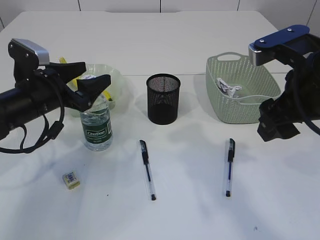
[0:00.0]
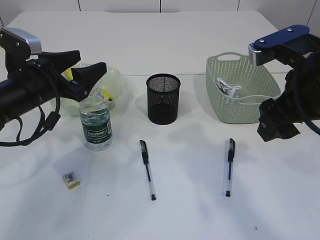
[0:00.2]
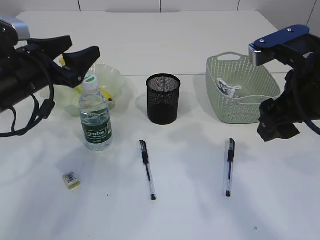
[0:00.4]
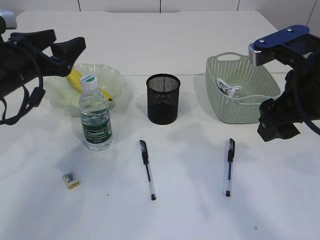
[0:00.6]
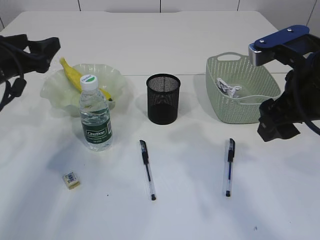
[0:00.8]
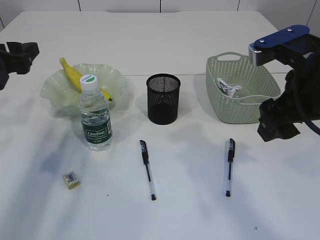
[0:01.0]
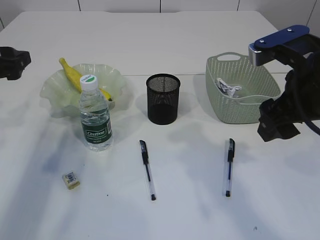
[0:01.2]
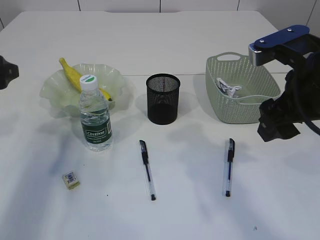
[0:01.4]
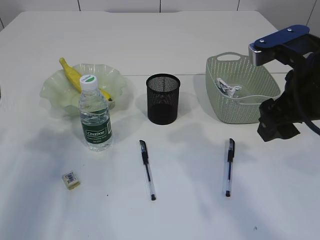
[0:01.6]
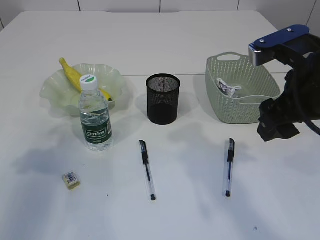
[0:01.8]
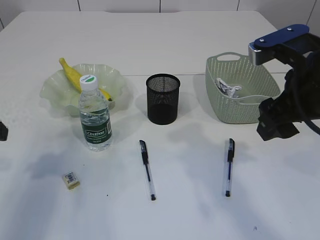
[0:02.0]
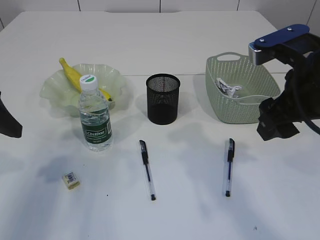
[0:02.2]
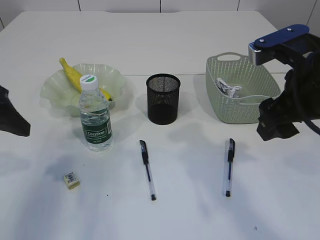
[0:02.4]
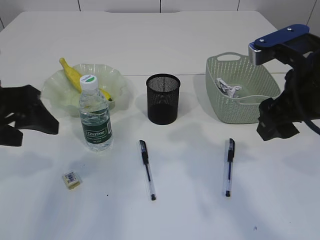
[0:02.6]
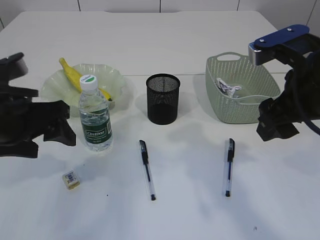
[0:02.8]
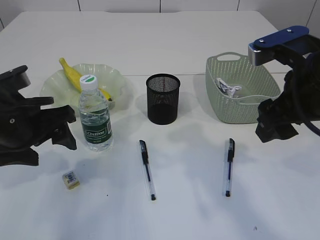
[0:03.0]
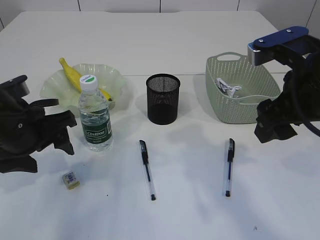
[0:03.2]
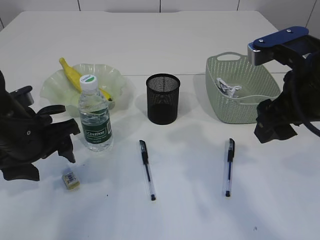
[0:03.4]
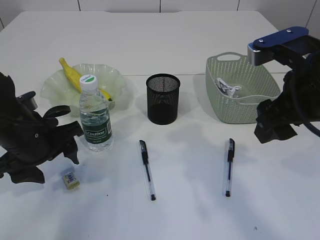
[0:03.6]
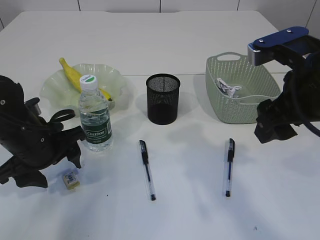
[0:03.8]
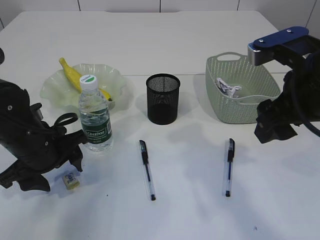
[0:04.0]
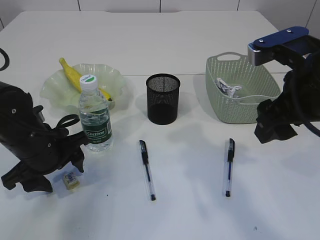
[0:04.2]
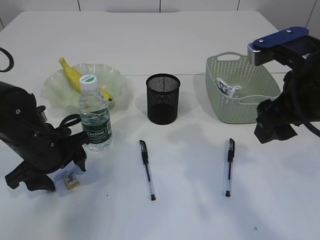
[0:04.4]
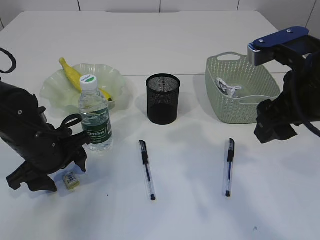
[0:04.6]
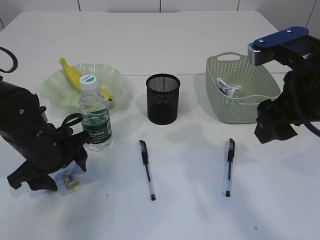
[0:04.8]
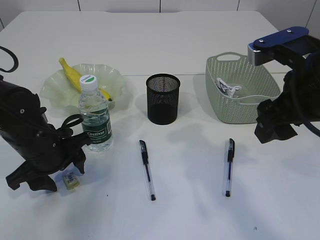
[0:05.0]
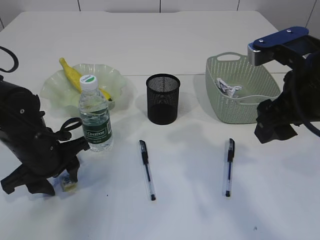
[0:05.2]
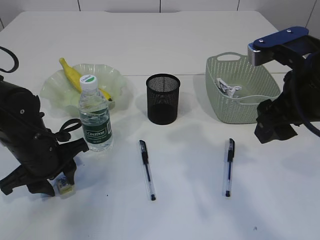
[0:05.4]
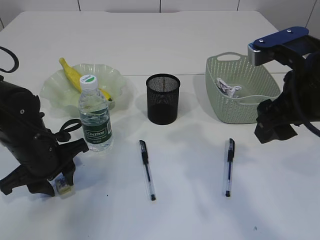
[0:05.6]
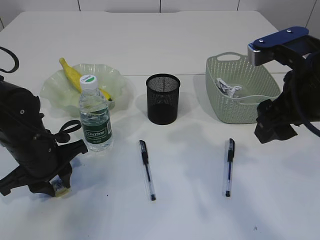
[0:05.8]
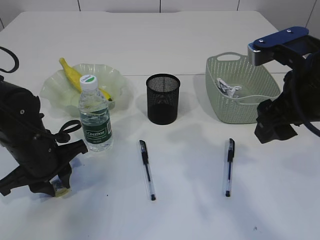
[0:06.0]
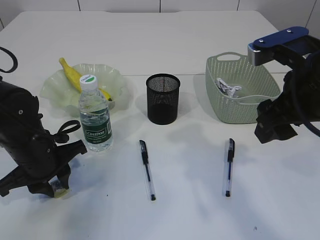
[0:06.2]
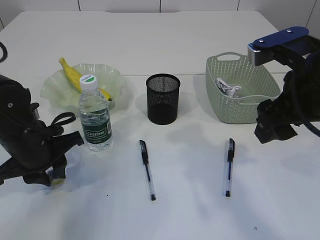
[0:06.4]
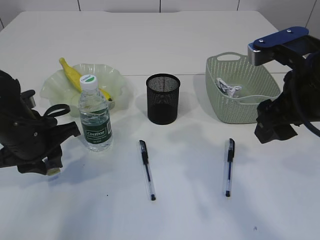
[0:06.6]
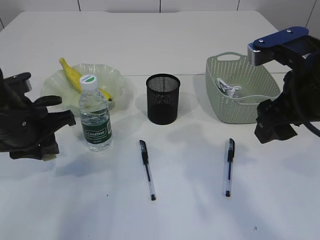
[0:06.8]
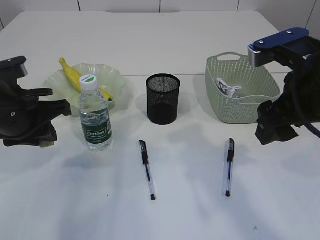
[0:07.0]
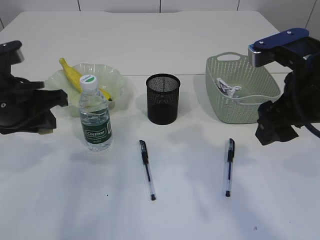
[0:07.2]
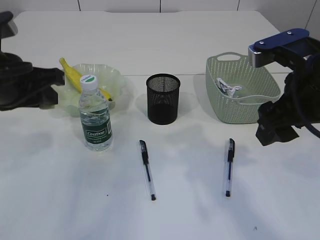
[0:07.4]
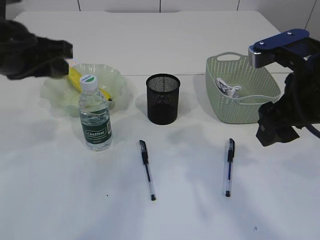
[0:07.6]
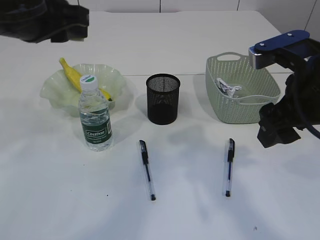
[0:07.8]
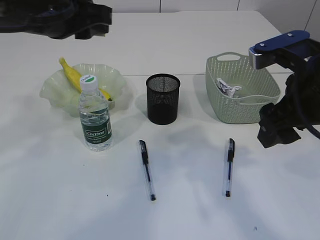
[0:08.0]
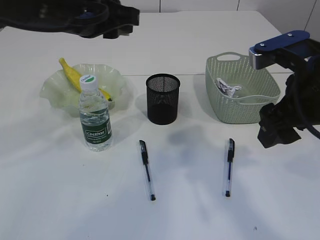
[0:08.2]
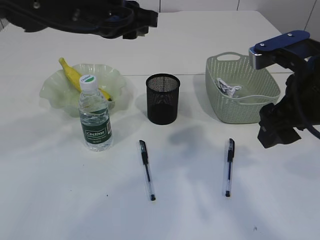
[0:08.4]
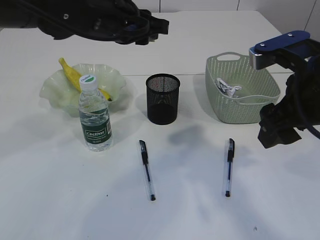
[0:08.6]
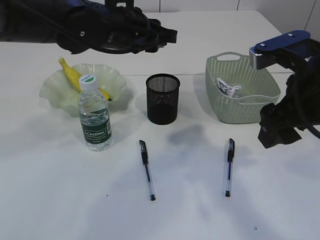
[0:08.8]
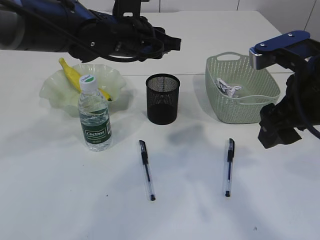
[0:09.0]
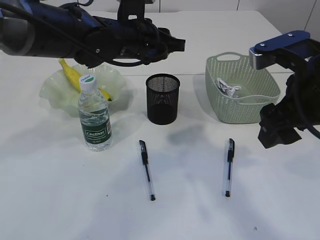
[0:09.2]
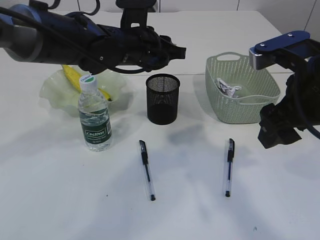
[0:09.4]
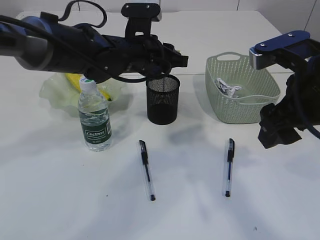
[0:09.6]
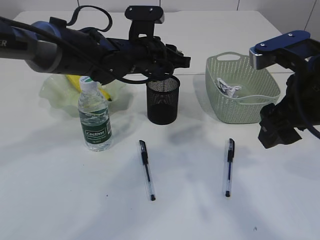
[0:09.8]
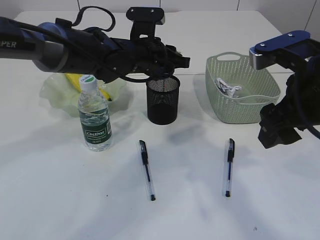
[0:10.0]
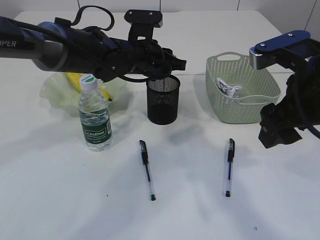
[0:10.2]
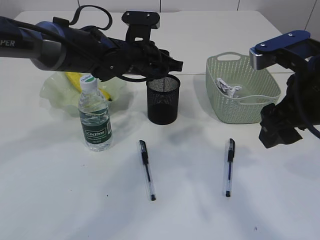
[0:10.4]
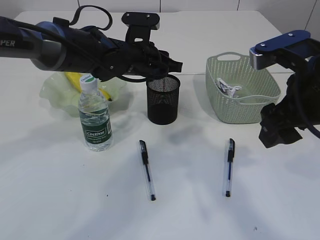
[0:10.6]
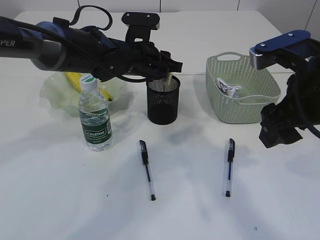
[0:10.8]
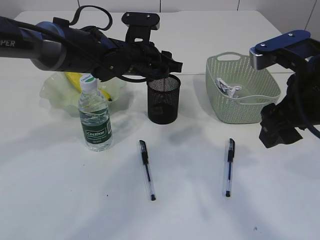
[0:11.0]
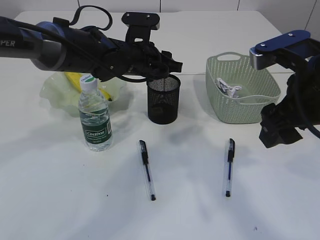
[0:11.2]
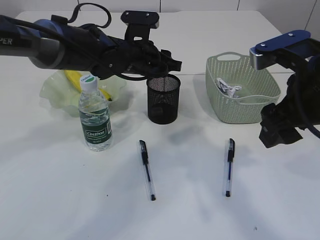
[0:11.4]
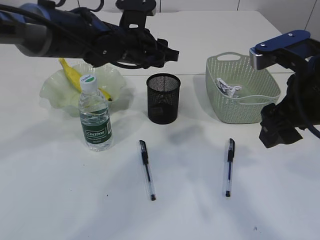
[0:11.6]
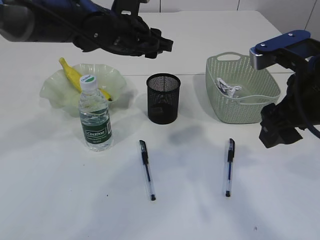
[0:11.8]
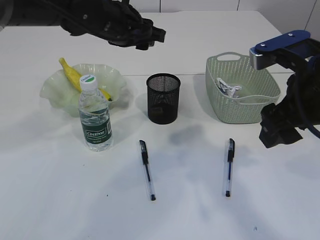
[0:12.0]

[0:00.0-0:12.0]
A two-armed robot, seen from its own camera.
Step, 0:00.2 to 0:06.6: Pick up the eraser.
Step, 0:06.8 to 0:11.8: Place the eraser into the pen holder.
0:00.0 to 0:01.6: The left gripper heads to the left, upward and backward, covering some 15 cm.
0:01.6 to 0:03.0: The left gripper is displaced to the right by approximately 10 cm.
0:03.0 to 0:04.4: The left gripper travels downward by some 10 cm.
0:04.4 to 0:06.0: The left gripper closes its fingers.
0:06.0 to 0:07.6: The left gripper goes roughly 20 cm upward.
0:07.6 to 0:09.0: The left gripper is displaced to the right and forward by roughly 20 cm.
0:09.0 to 0:10.4: The left gripper moves downward, some 5 cm.
0:10.4 to 0:12.0: The left gripper heads upward, covering approximately 10 cm, and opens.

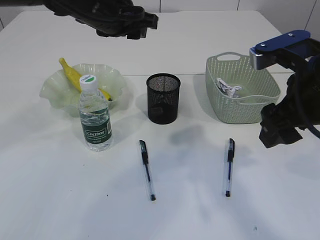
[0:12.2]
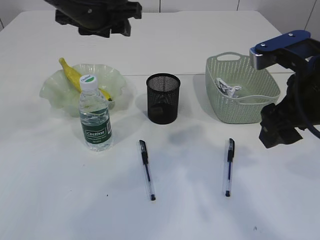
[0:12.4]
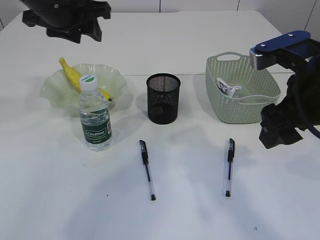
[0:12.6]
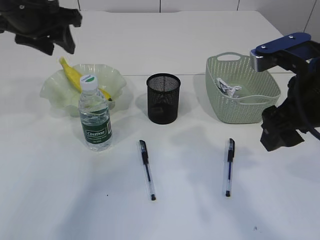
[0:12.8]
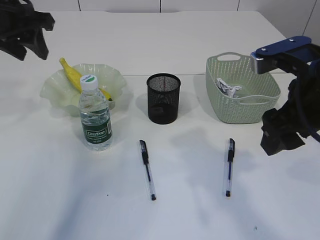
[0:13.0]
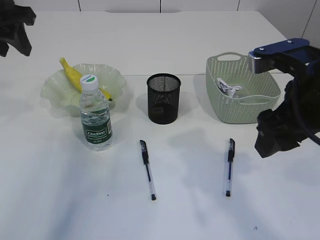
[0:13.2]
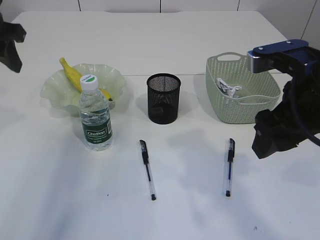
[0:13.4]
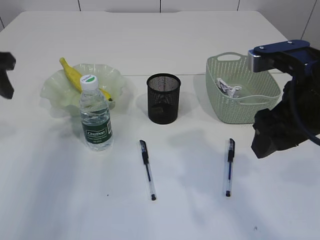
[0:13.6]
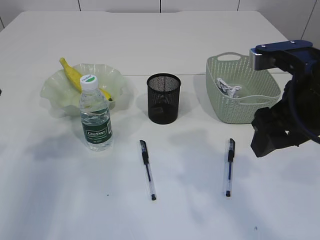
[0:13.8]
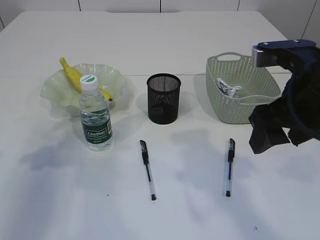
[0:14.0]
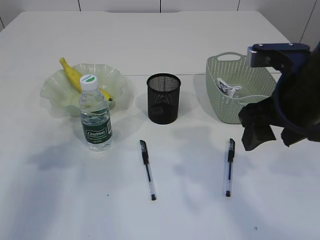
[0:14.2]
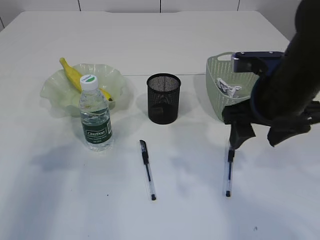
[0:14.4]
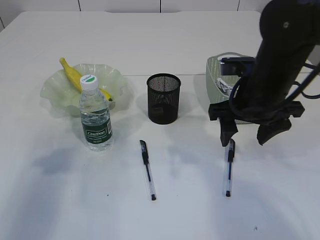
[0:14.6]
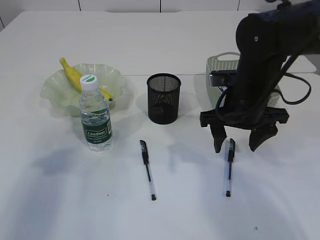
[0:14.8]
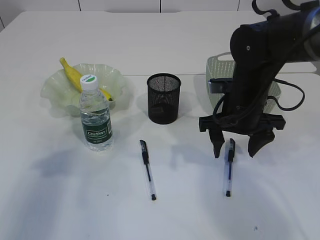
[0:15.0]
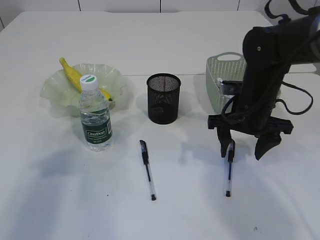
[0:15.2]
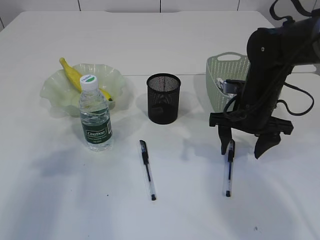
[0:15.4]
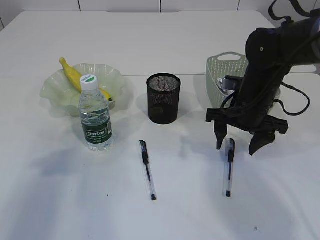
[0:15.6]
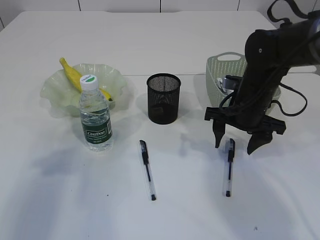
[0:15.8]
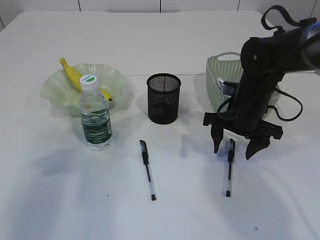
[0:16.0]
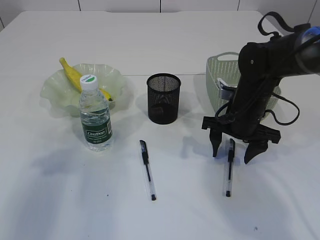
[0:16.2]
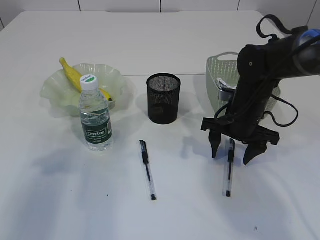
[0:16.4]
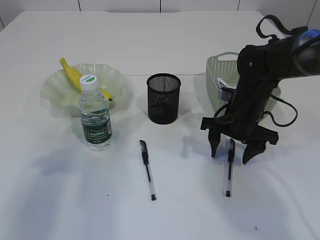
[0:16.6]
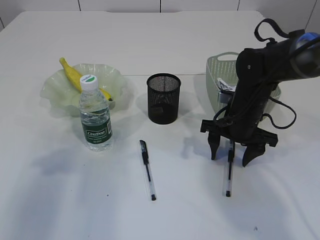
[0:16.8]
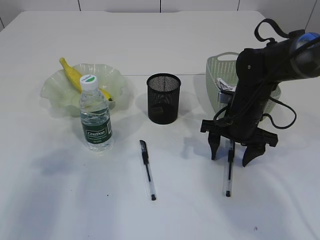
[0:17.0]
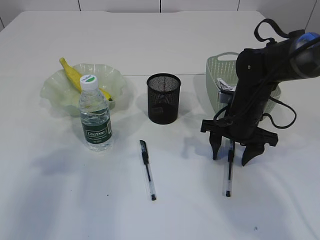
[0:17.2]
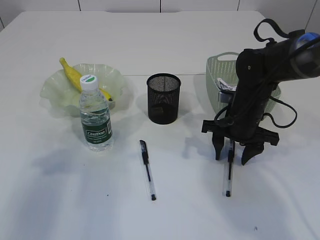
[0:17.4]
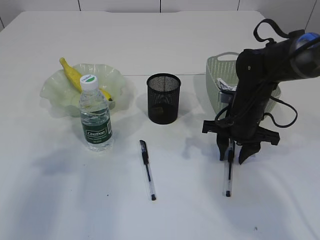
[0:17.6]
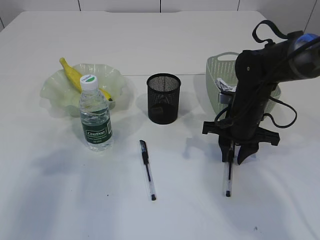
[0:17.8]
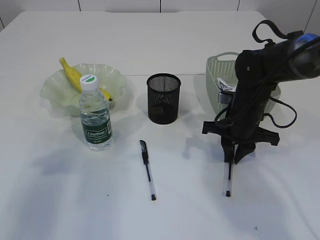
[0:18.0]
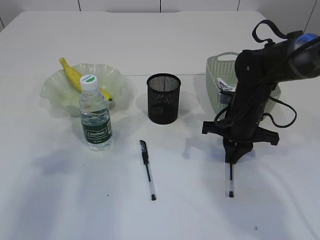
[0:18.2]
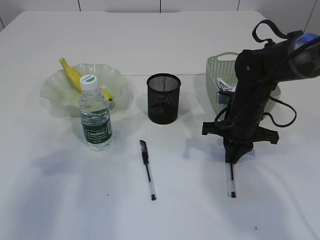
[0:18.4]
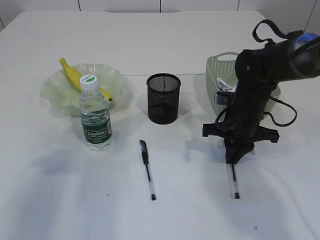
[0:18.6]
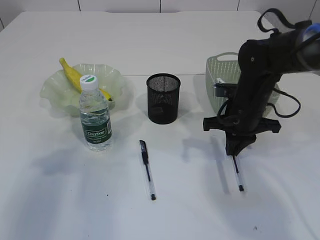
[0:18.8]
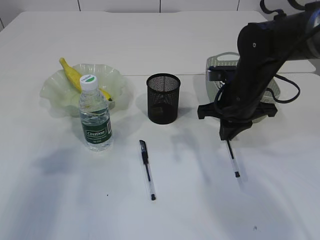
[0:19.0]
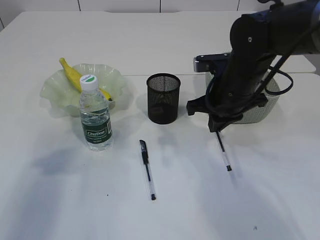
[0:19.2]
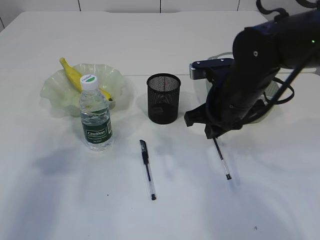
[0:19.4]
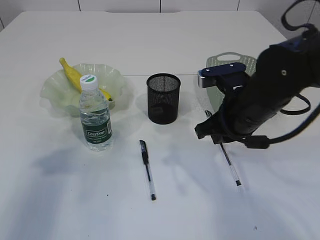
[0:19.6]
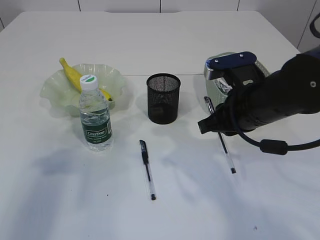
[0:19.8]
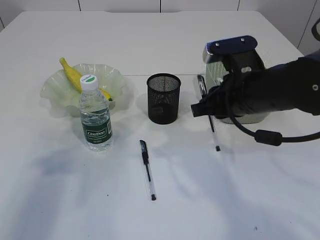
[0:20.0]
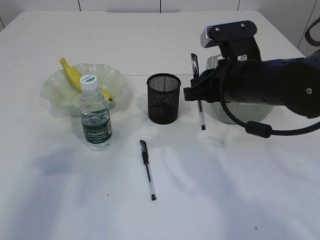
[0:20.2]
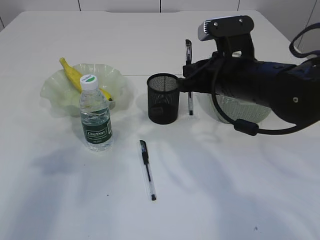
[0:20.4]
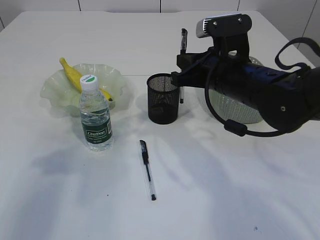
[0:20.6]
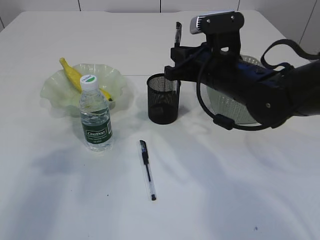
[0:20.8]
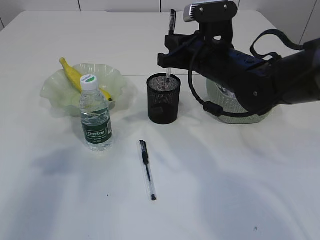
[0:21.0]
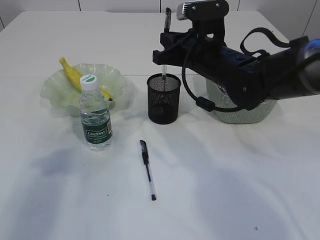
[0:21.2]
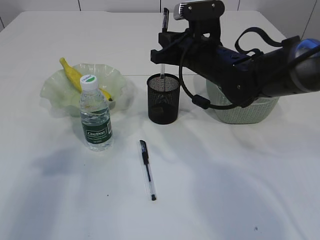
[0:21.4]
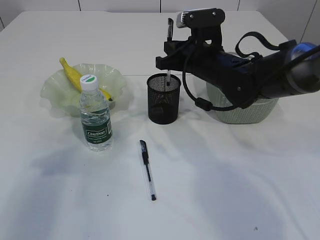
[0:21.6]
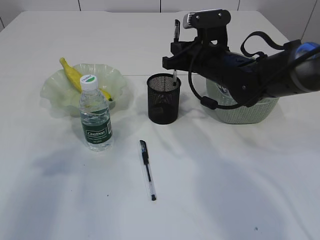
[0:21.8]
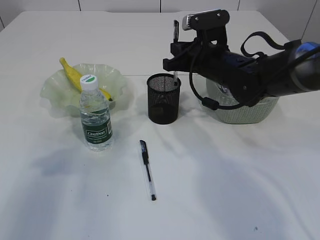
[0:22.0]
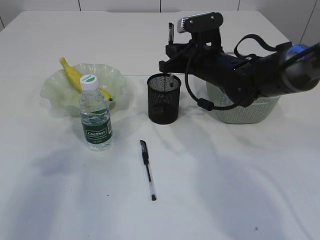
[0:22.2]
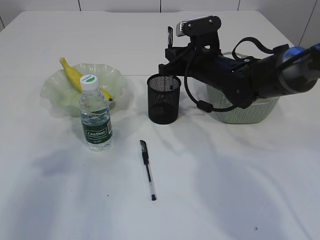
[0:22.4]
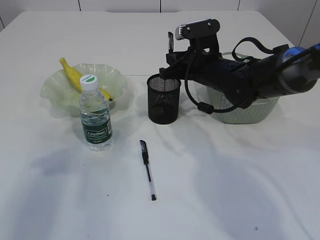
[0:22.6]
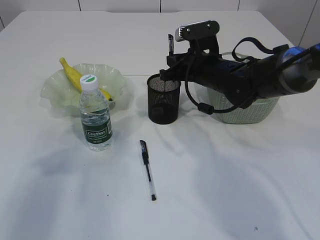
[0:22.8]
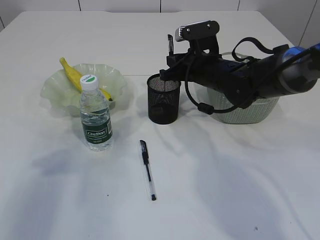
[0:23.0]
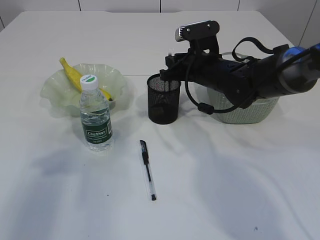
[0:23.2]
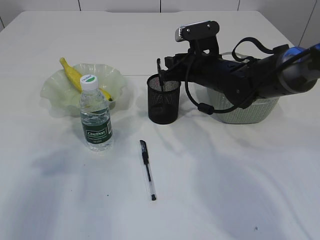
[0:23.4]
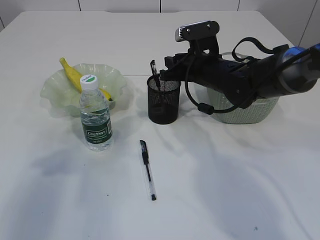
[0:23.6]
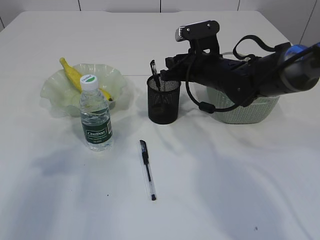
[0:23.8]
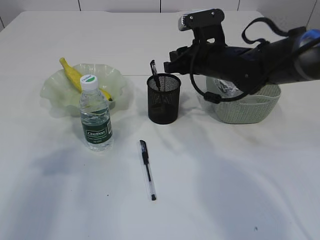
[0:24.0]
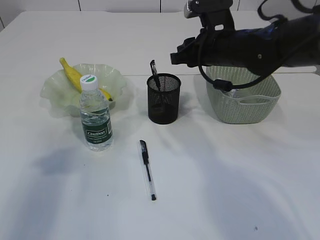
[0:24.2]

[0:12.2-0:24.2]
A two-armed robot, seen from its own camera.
Step, 0:12.2 to 0:19.0: Pick up the pen with right arm.
Step, 0:19.2 to 0:24.0: Place the pen into the pen holder.
0:12.2 to 0:13.8: The left gripper moves to the left and backward, about 25 cm.
0:13.8 to 0:15.2: The left gripper moves backward, about 5 cm; the right gripper shifts some 15 cm forward and downward.
0:15.2 to 0:16.6: The grippers stay close to where they were, moving slightly.
0:16.6 to 0:18.2: The right gripper closes up.
0:18.2 to 0:19.8: The right gripper shifts some 10 cm upward and backward.
0:19.8 to 0:21.2: The right gripper moves forward, roughly 10 cm.
0:21.2 to 0:22.6: The right gripper changes place by approximately 5 cm.
0:22.6 to 0:24.2: The right gripper goes approximately 5 cm upward, and opens its fingers.
